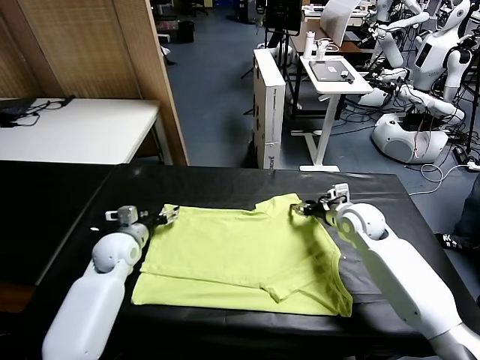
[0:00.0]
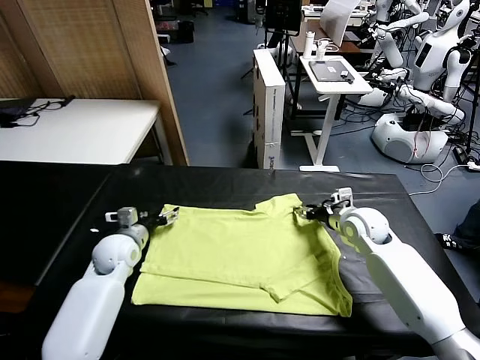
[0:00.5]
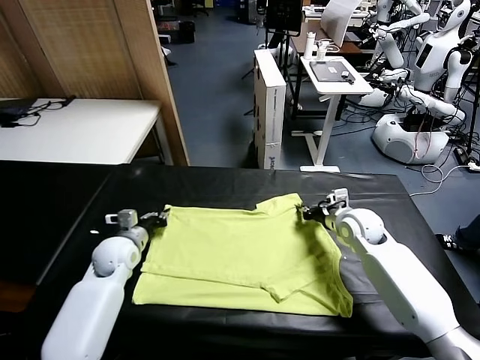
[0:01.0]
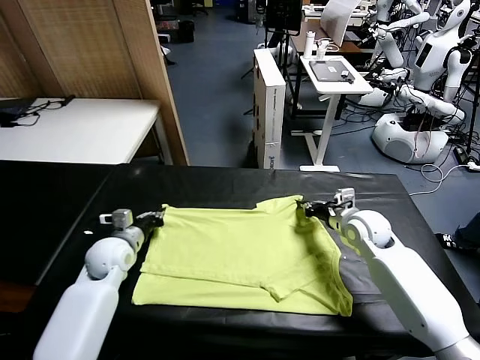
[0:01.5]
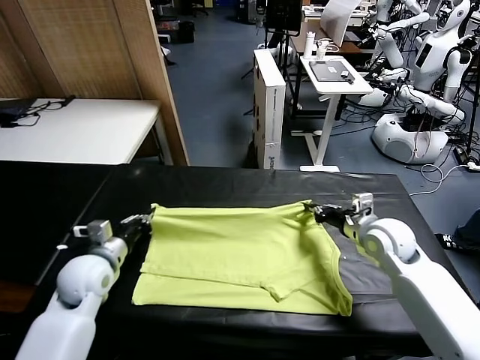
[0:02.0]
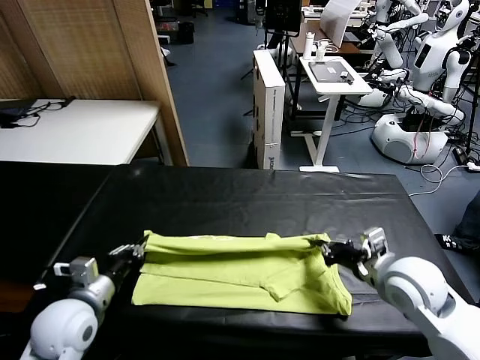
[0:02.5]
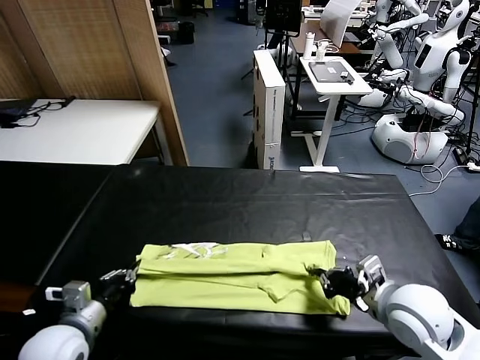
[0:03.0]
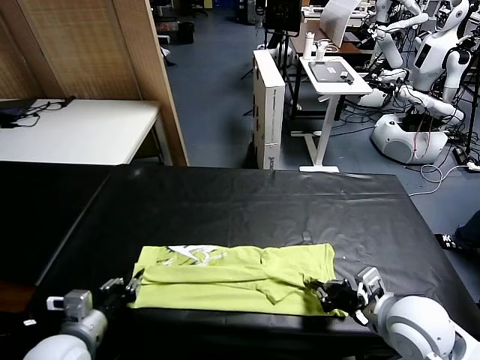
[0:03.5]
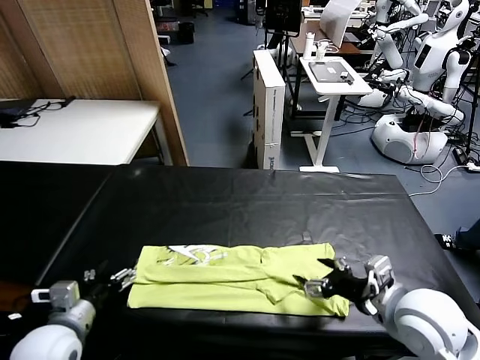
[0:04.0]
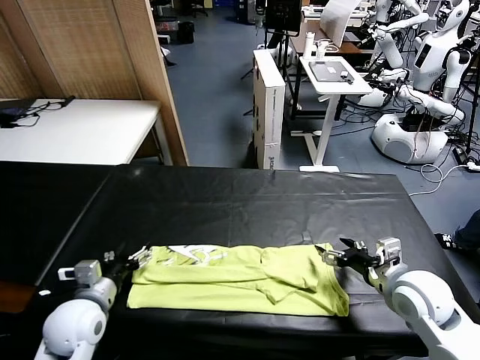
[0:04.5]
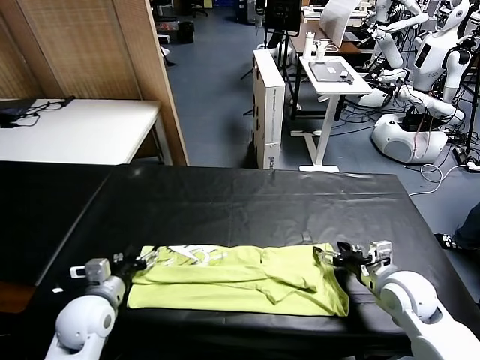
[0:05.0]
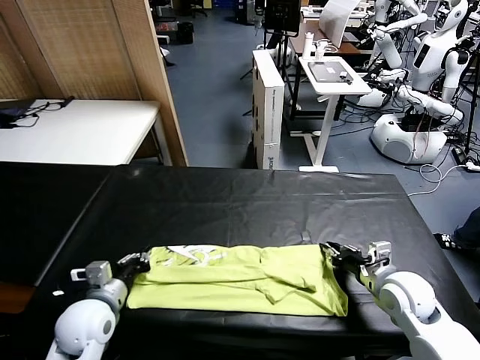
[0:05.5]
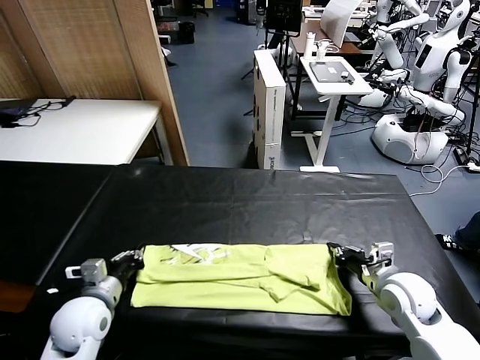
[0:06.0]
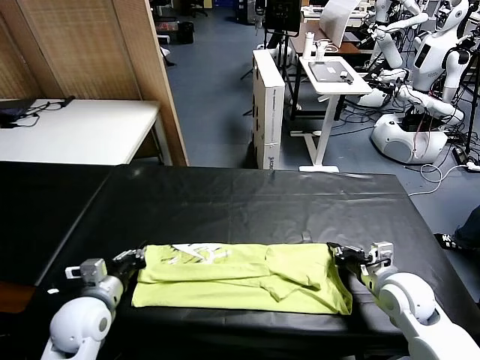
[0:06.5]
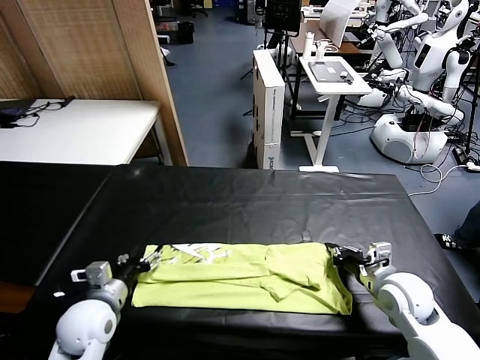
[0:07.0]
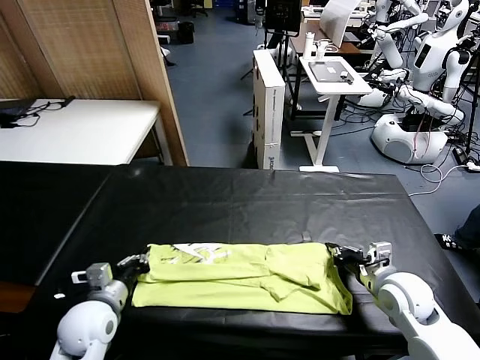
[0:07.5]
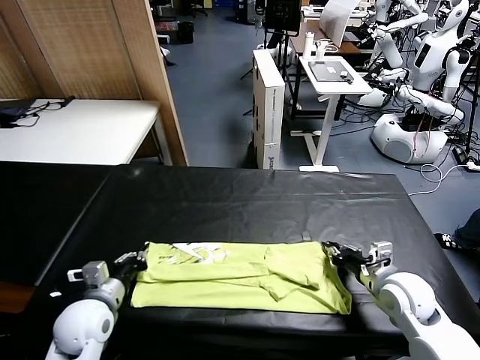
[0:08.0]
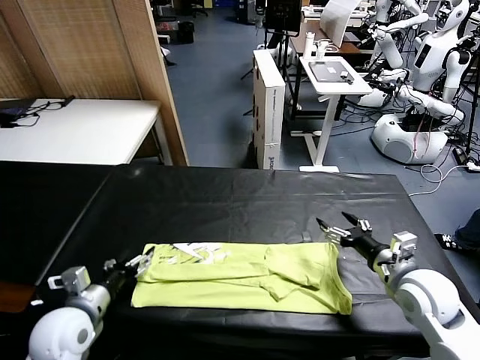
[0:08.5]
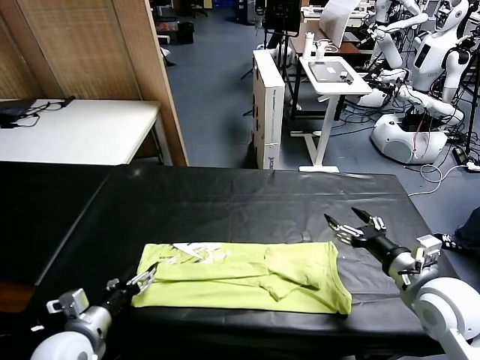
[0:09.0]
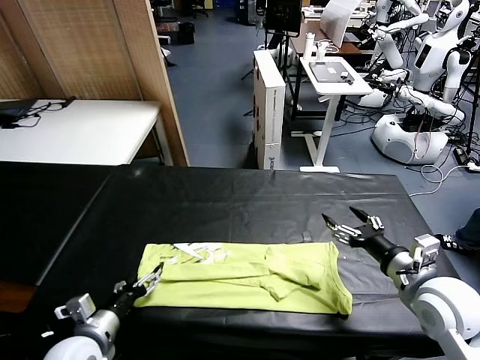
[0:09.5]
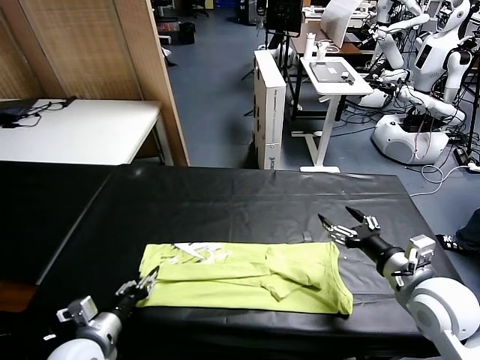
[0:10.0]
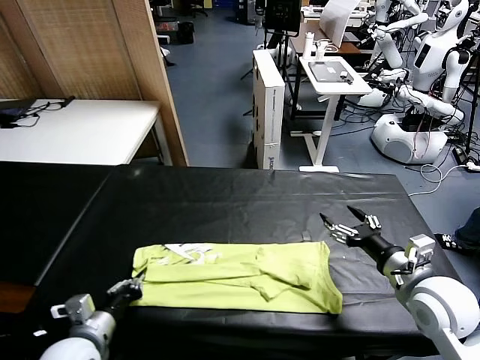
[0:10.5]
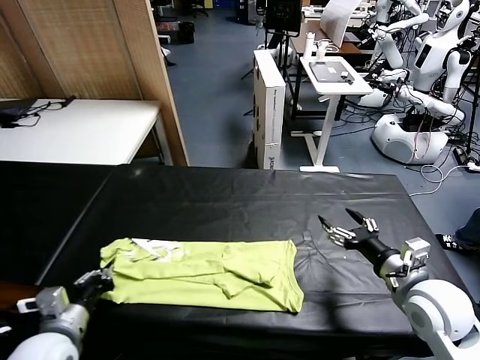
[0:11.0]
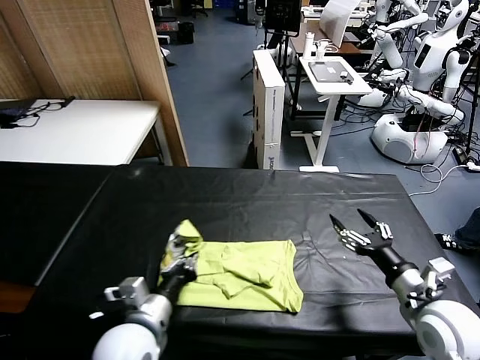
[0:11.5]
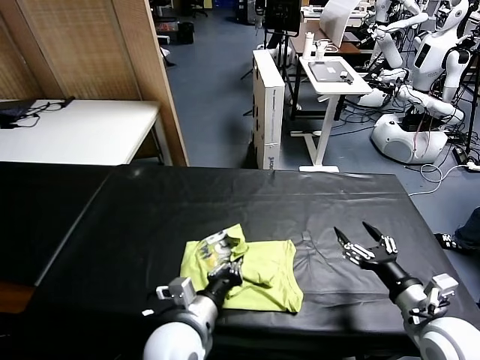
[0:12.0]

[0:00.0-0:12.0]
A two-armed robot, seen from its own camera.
Task of the whole recording: fold and organize the clothes.
Step, 0:01.5 to 0:03.5: use both grippers to drag the upper edge of the fabric backward and fold it over the lower edge.
Step, 0:04.0 to 0:10.0: use the left gripper to clamp the left edge of the fabric.
0:00.0 to 0:02.0: Both grippers travel together backward, about 20 cm. The left gripper closes up. The right gripper closes its fingers.
0:02.0 to 0:04.0: The right gripper shifts roughly 5 cm downward, and opens its fingers. Meanwhile the left gripper changes place by roughly 5 cm, and opens.
0:04.0 to 0:06.0: The right gripper closes its fingers; the left gripper closes.
0:06.0 to 0:08.0: The left gripper goes roughly 5 cm backward, and opens, while the right gripper shifts approximately 10 cm upward, and opens.
0:08.0 to 0:10.0: The left gripper closes up.
0:10.0 to 0:12.0: The left gripper moves to the right, some 25 cm; the right gripper is displaced backward by roughly 5 cm.

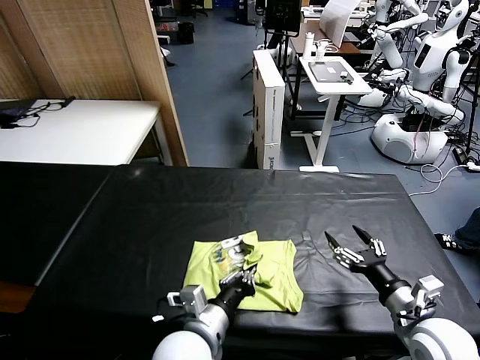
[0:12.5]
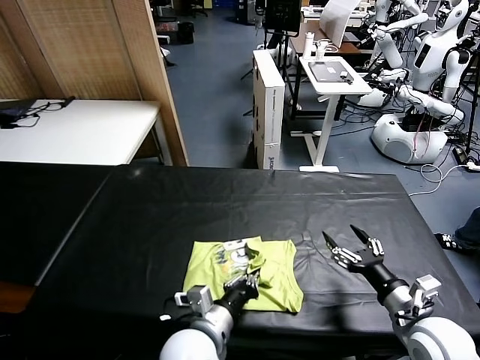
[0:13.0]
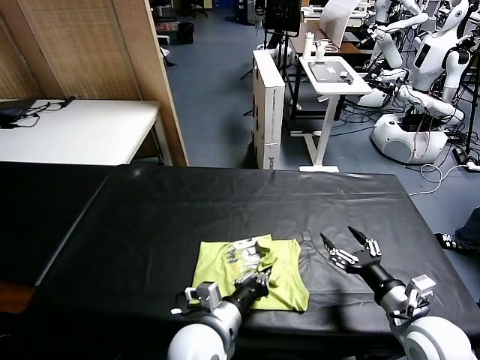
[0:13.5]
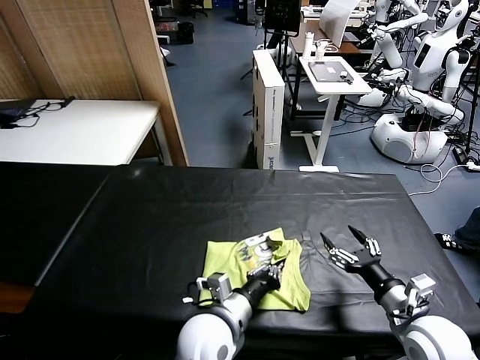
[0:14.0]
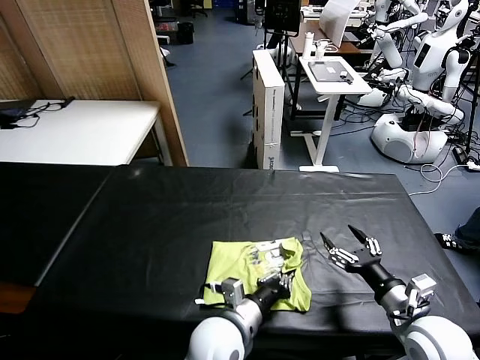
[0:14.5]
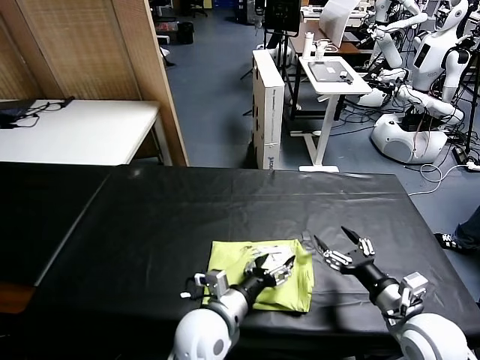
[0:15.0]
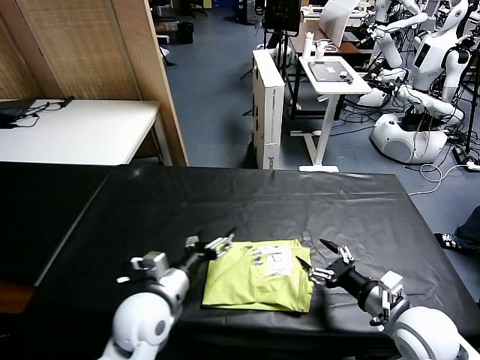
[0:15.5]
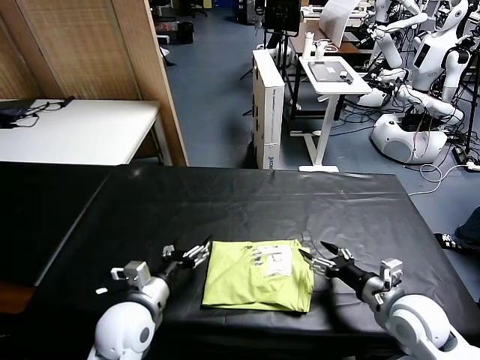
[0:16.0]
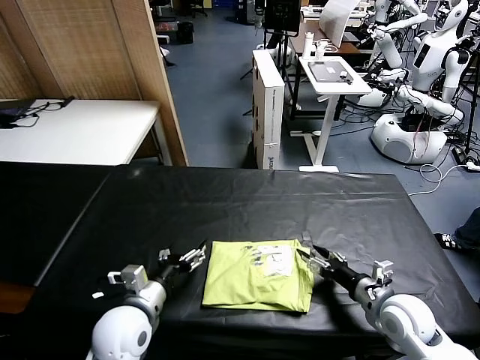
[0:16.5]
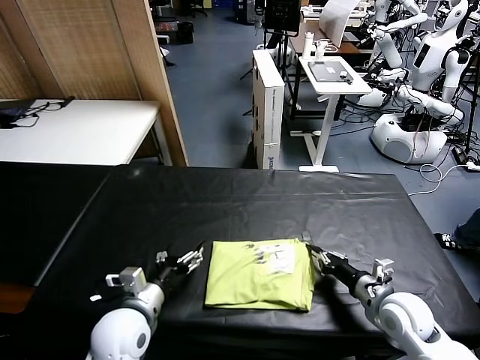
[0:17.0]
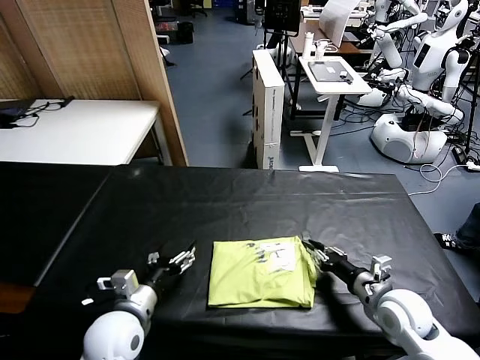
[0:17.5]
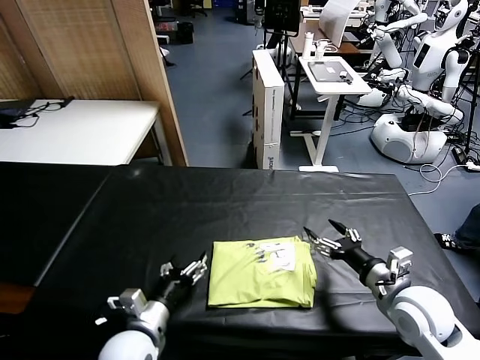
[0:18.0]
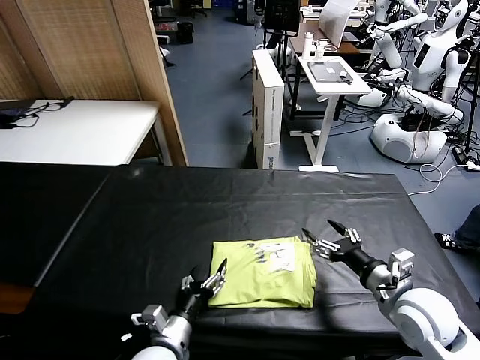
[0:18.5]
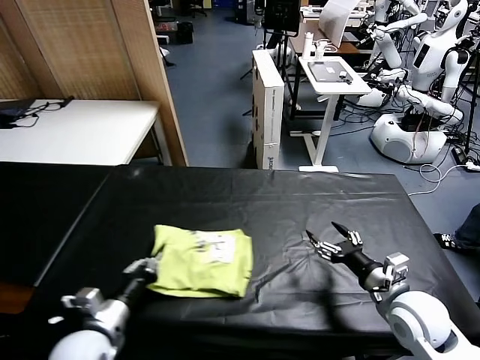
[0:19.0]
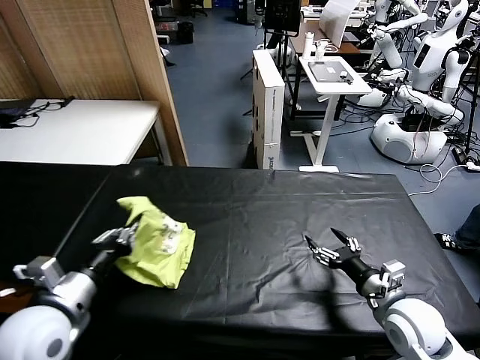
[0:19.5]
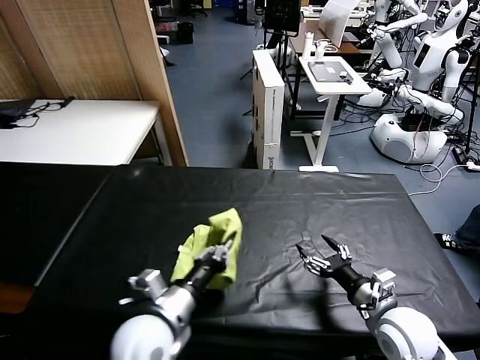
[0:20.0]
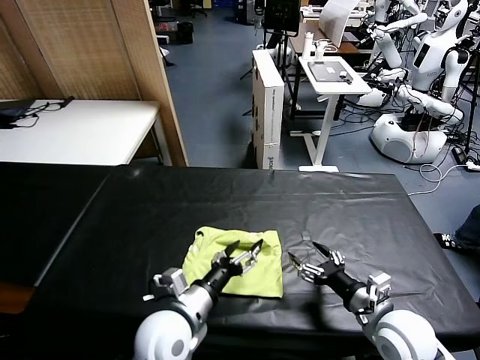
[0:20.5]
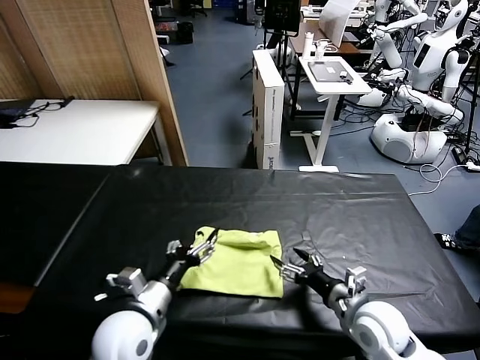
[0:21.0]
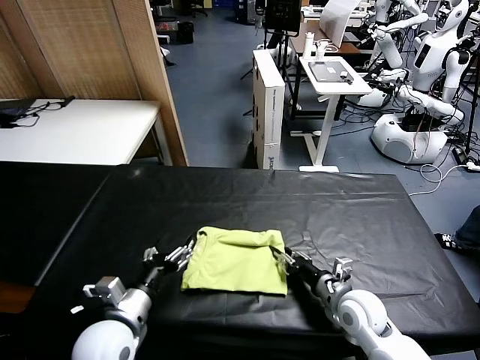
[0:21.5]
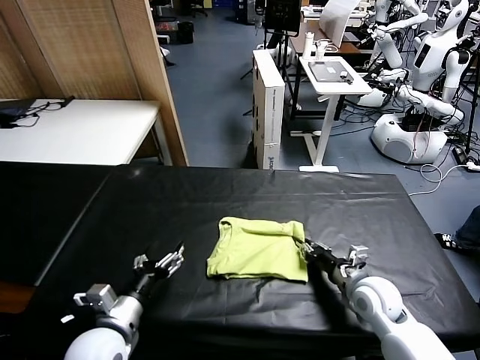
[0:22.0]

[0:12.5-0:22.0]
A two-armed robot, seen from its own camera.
Task of the whole recording: fold and organize the clothes.
Step, 0:12.5 to 0:14.5: use the left gripper to drag the left edge of the fabric to the left and folds it over the right edge.
Step, 0:15.5 to 0:20.0: Flip the folded clothes over with left gripper.
0:12.5 to 0:14.5: The left gripper goes roughly 10 cm to the left and forward, and opens.
0:14.5 to 0:16.5: The right gripper heads forward, covering some 5 cm, and closes. Meanwhile the left gripper heads to the left, covering some 5 cm.
0:16.5 to 0:18.0: The left gripper moves to the right and downward, roughly 10 cm, while the right gripper goes approximately 5 cm upward, and opens.
0:18.0 to 0:20.0: The right gripper ends up roughly 5 cm from where it was, while the left gripper travels upward and to the left by about 20 cm, and closes.
0:20.0 to 0:22.0: The left gripper travels downward by roughly 10 cm, travels to the right and back again, about 10 cm each way, and opens up. The right gripper is displaced forward by approximately 10 cm, and closes its fingers.

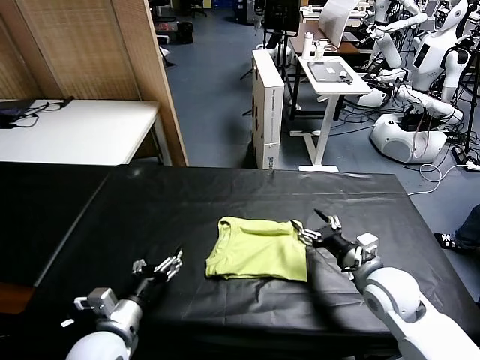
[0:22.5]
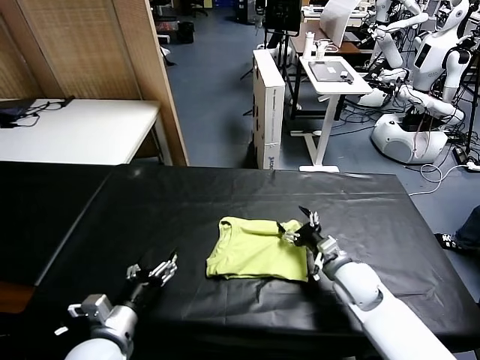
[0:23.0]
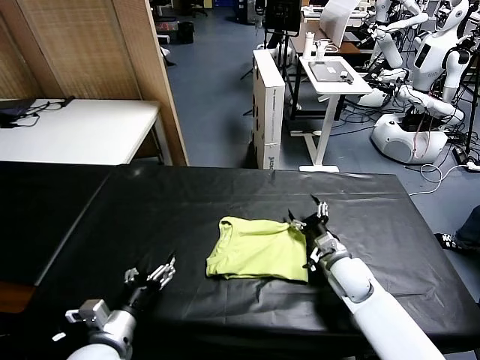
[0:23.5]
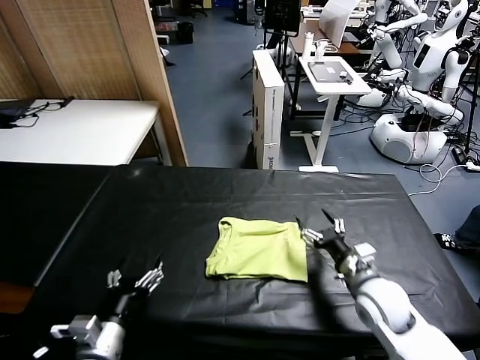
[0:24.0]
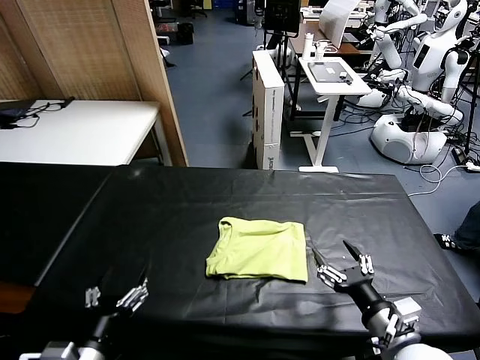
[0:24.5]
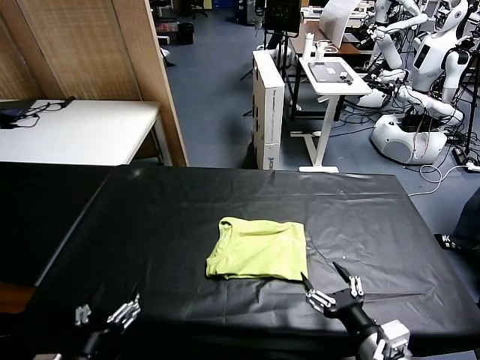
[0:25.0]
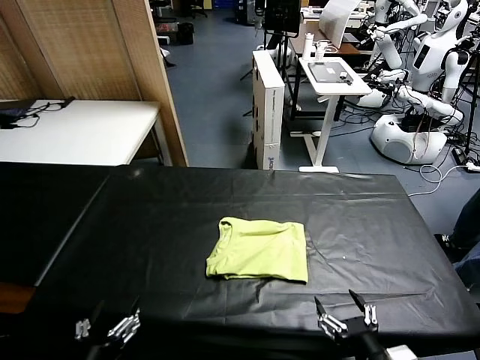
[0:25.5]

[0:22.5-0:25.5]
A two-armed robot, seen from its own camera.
Task of the whole recording: fold and organize the clothes.
0:24.0 to 0:25.5: The left gripper heads backward, covering approximately 10 cm. The right gripper moves backward, approximately 25 cm.
